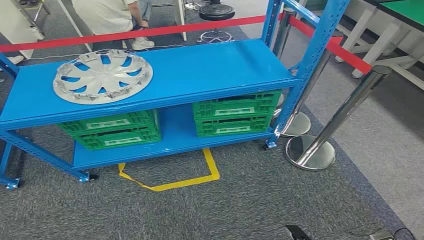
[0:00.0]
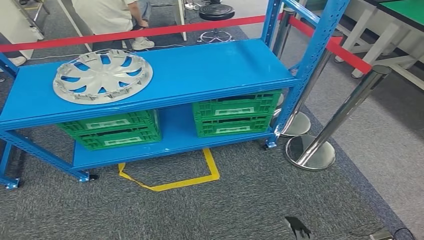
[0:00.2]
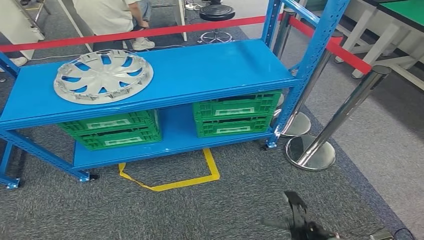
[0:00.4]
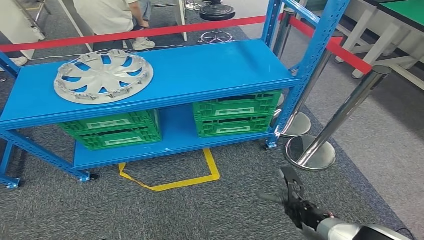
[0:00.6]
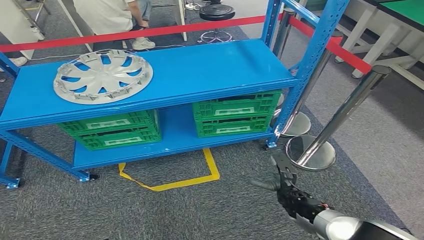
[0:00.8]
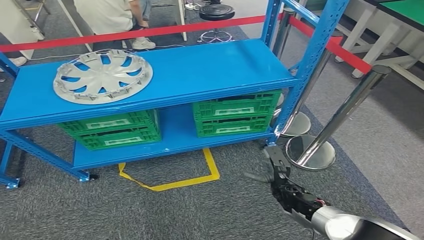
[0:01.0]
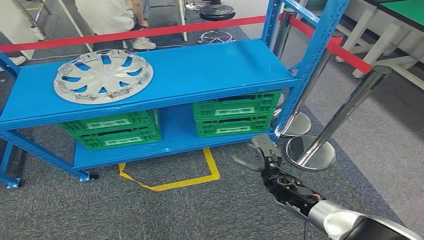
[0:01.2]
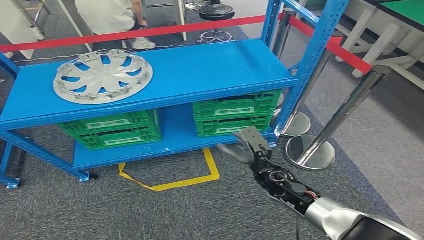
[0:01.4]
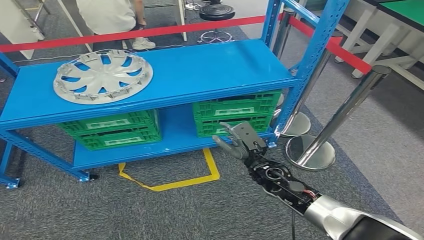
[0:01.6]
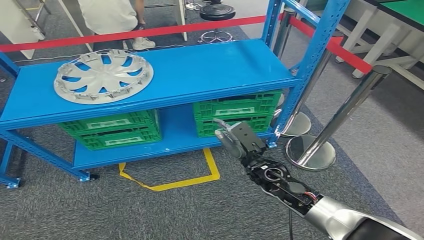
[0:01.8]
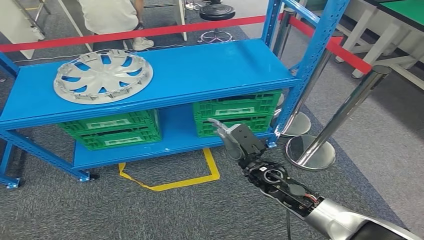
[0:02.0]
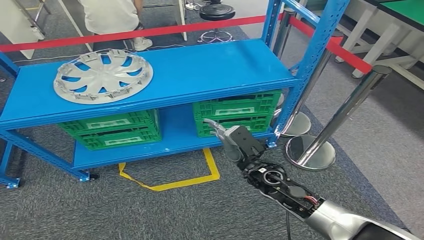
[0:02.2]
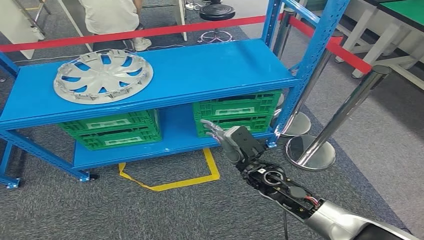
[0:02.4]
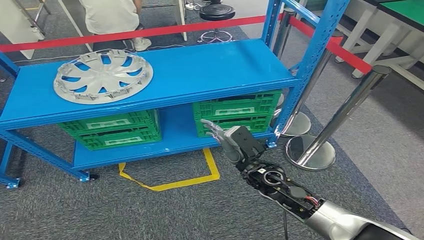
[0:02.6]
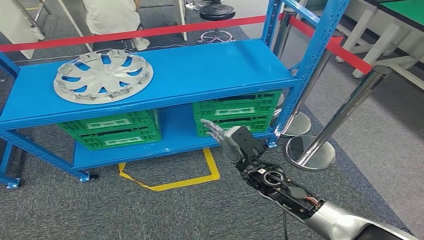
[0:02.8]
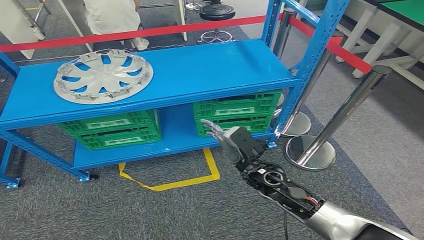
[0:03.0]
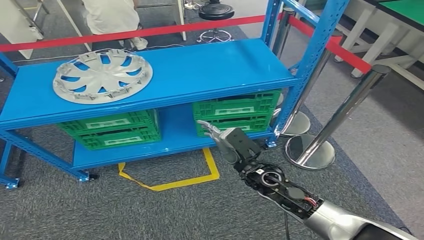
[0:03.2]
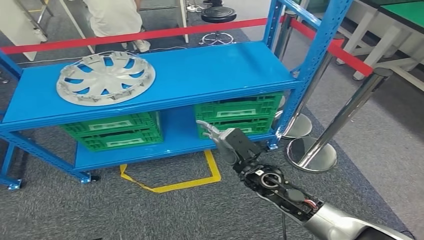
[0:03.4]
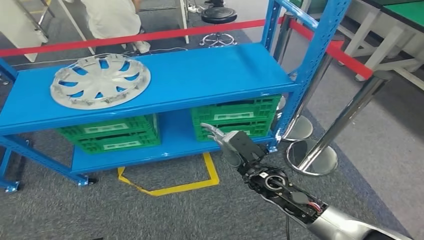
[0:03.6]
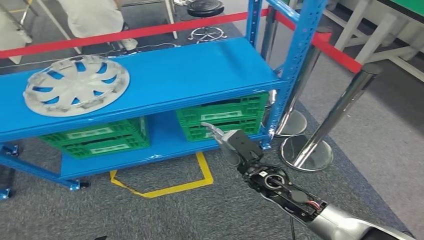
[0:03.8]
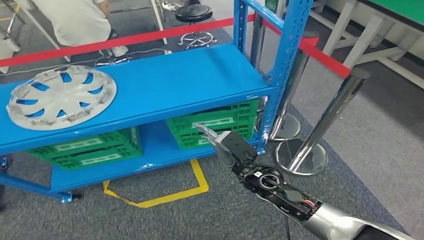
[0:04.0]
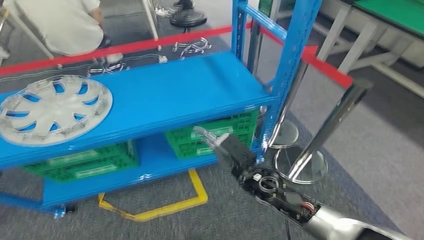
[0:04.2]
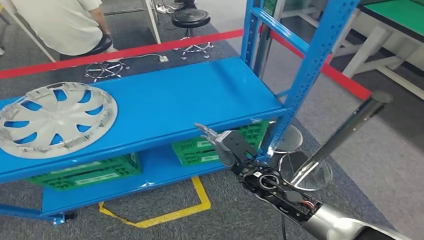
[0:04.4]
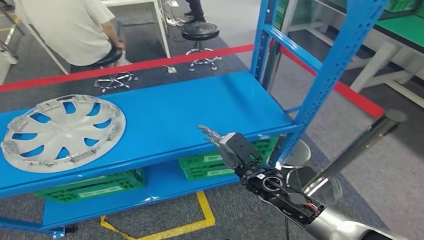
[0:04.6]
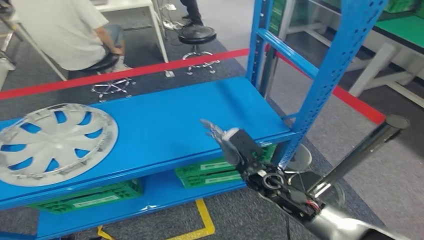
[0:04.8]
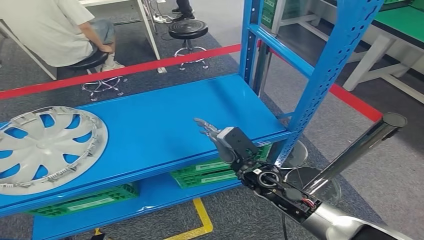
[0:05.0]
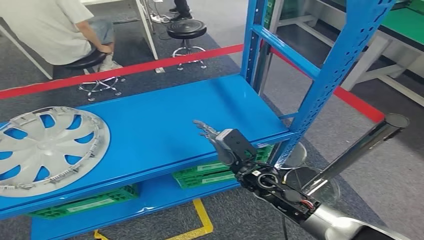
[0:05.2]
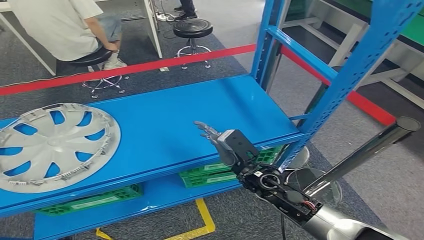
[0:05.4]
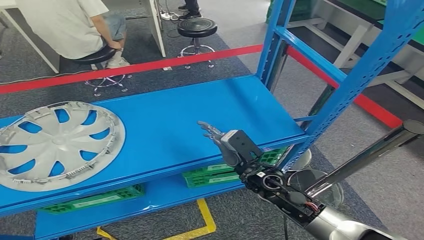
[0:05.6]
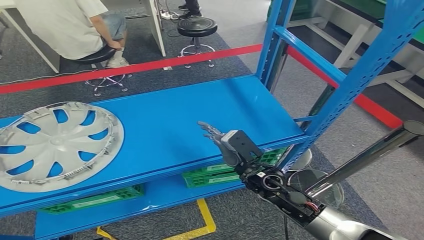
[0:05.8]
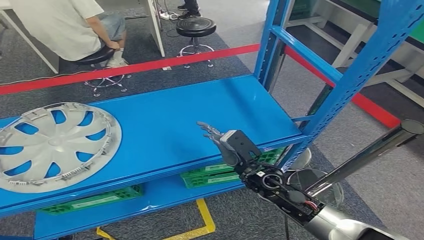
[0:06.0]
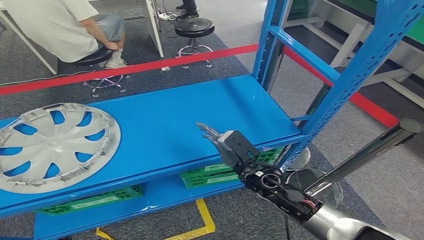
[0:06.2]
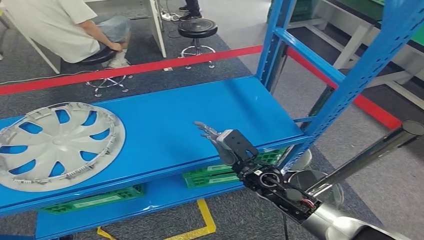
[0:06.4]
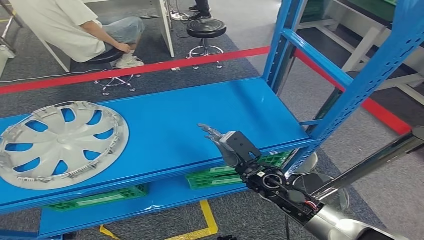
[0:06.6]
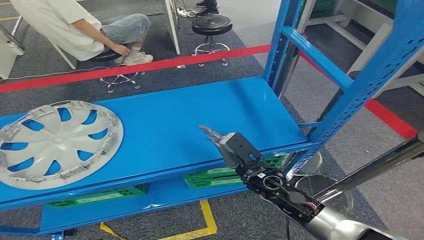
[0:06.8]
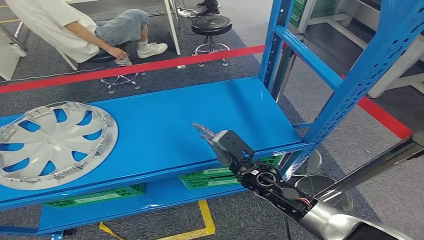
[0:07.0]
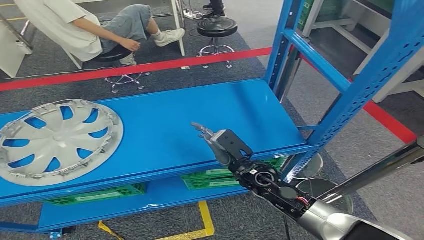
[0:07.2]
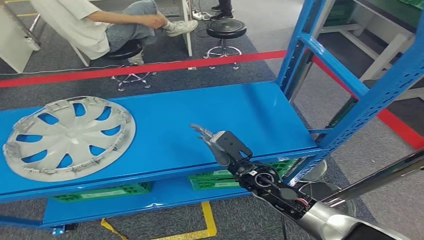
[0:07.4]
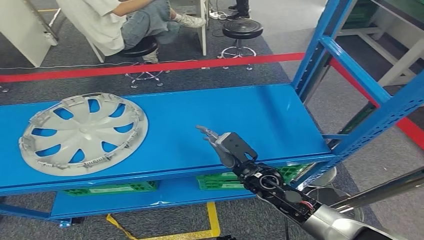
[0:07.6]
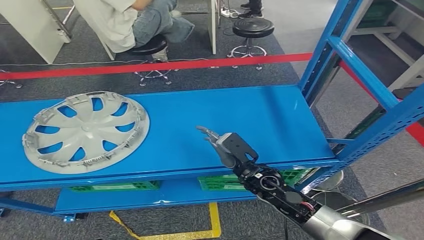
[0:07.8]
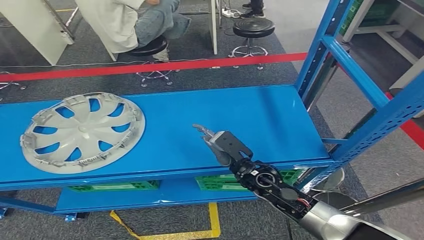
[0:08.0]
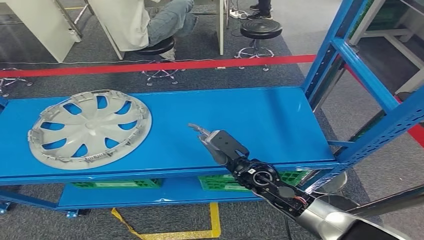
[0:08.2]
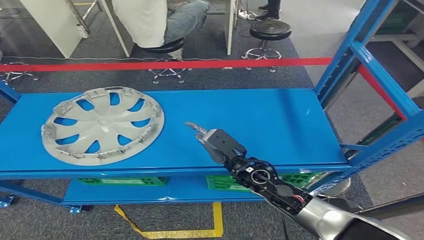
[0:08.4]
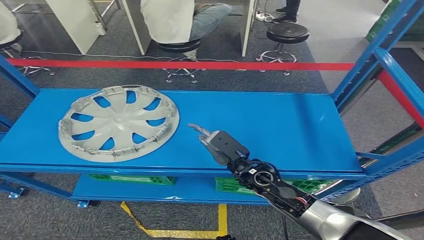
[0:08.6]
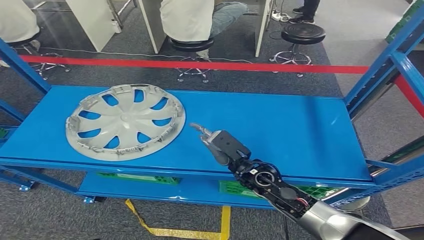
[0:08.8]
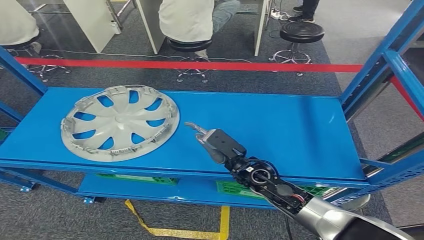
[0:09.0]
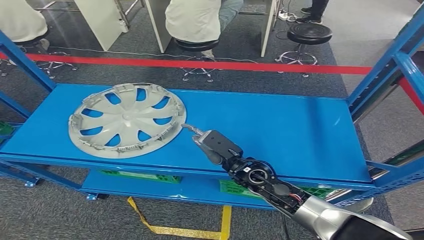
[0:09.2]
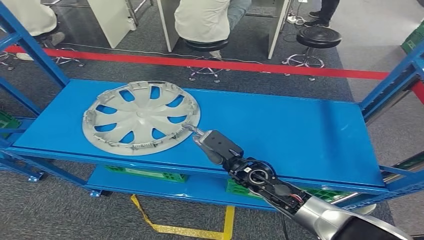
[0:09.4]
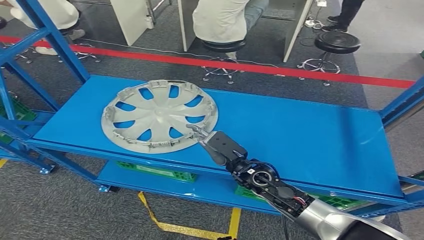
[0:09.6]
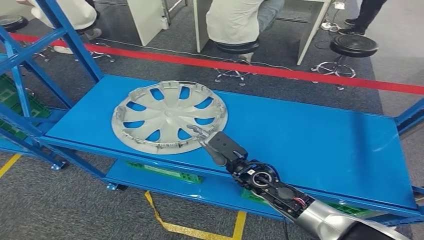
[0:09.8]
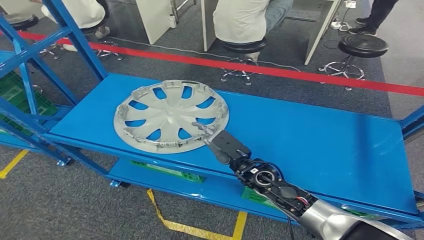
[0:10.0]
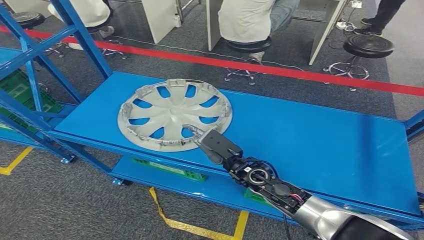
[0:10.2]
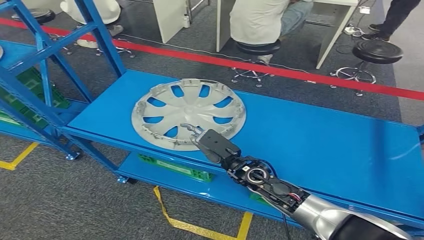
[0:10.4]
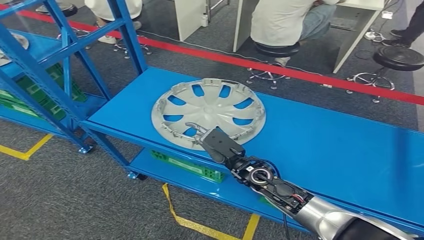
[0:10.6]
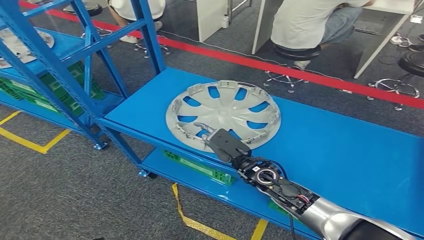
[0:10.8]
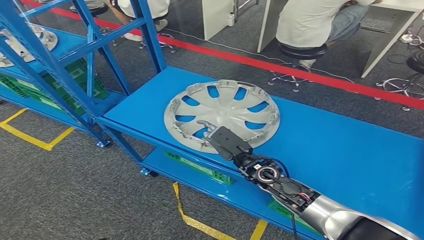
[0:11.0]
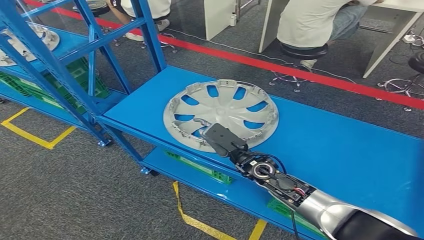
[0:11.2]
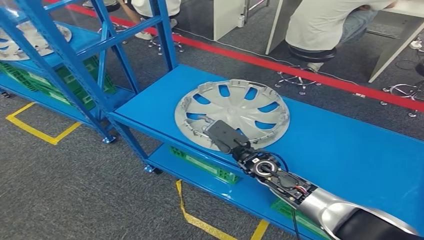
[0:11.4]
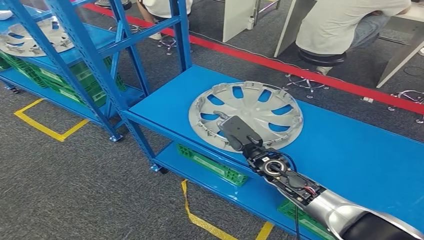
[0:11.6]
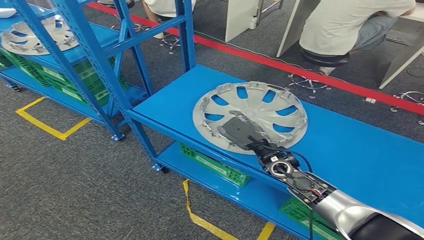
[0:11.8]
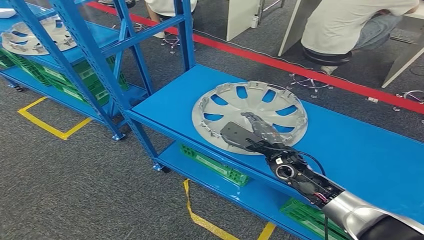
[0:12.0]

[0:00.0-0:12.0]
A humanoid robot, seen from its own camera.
1.6 to 3.0 s: The hands move only a little.

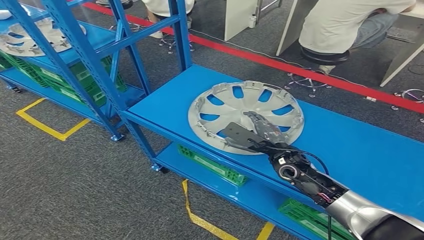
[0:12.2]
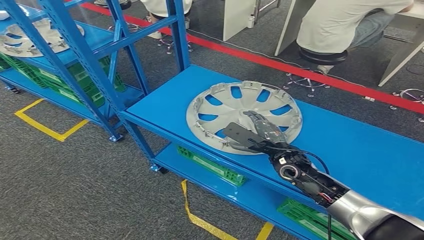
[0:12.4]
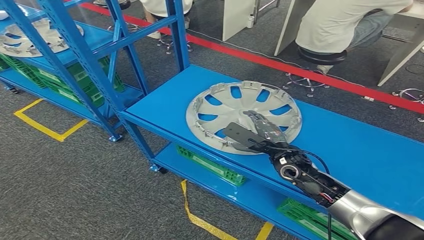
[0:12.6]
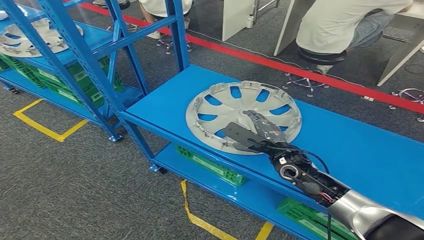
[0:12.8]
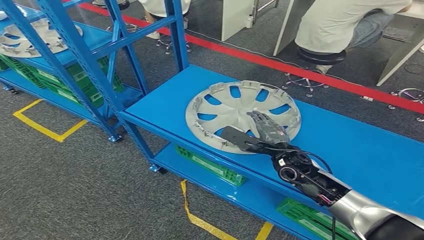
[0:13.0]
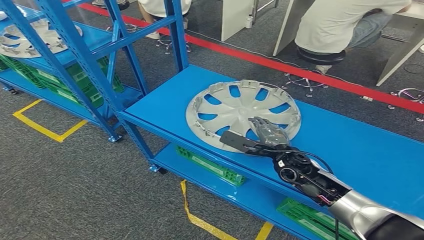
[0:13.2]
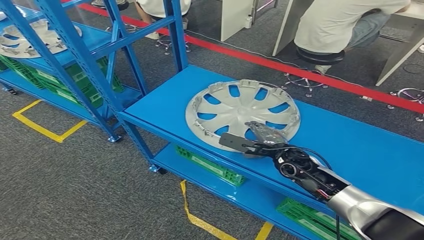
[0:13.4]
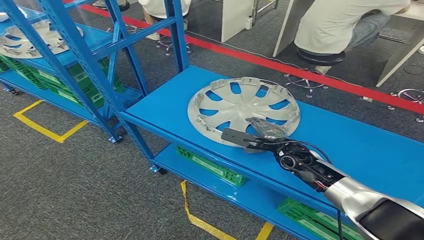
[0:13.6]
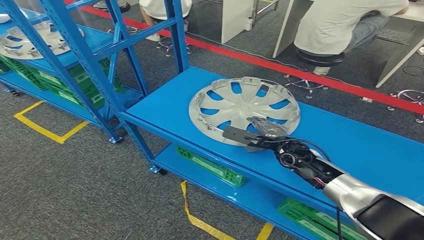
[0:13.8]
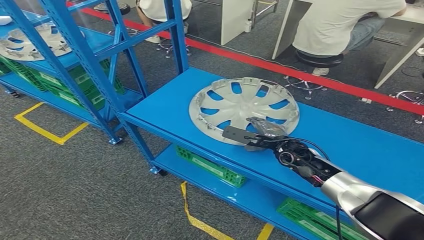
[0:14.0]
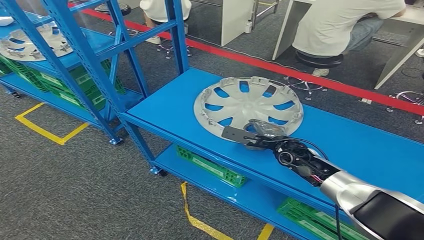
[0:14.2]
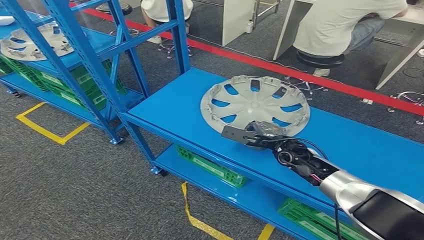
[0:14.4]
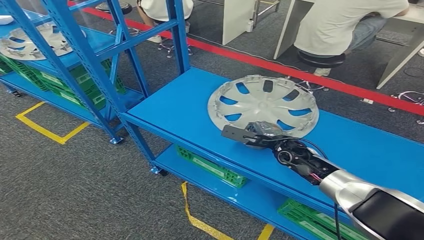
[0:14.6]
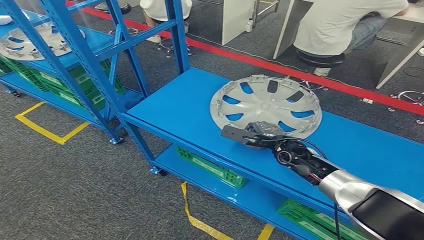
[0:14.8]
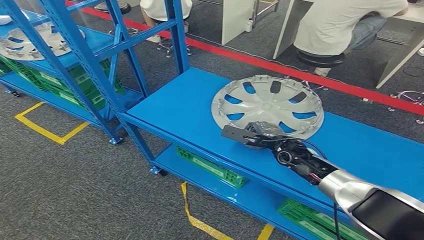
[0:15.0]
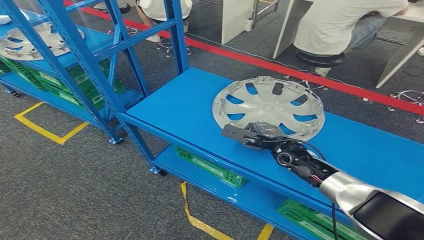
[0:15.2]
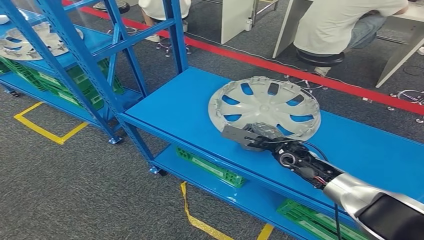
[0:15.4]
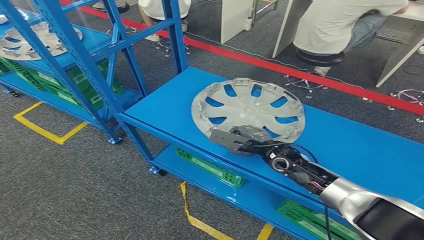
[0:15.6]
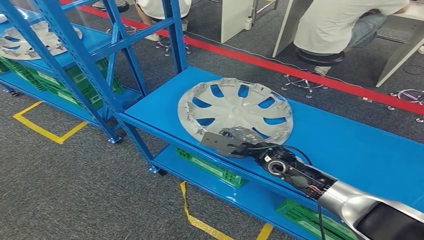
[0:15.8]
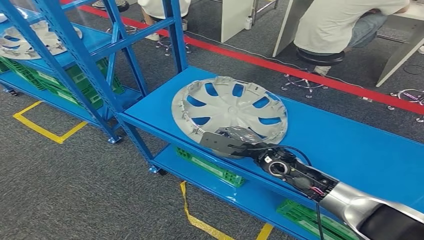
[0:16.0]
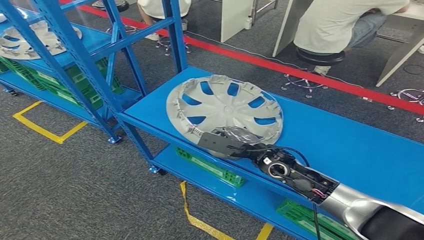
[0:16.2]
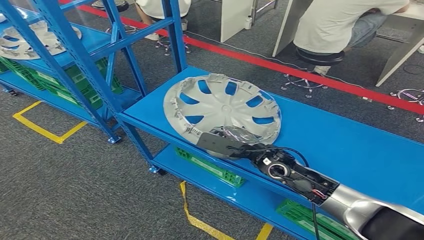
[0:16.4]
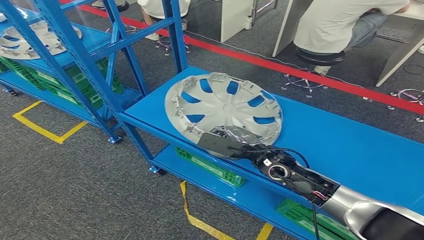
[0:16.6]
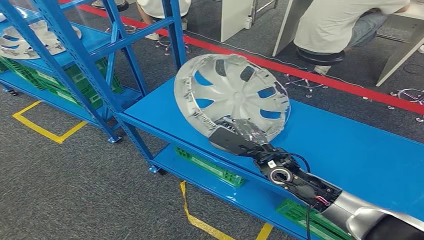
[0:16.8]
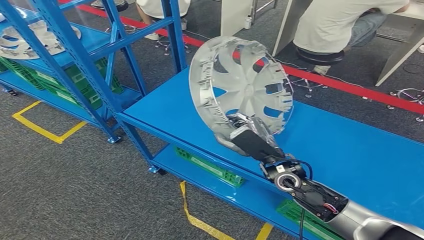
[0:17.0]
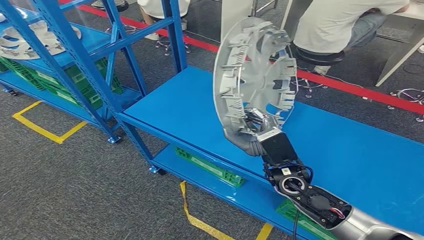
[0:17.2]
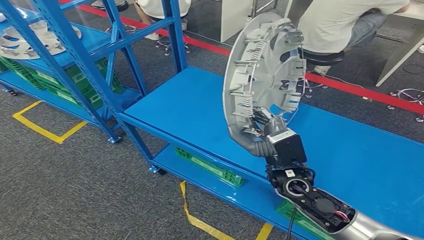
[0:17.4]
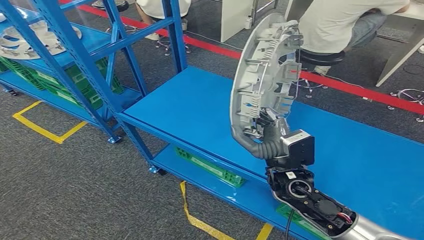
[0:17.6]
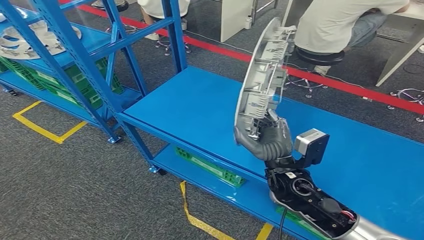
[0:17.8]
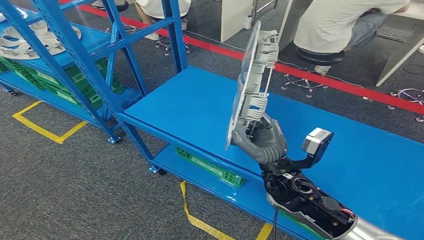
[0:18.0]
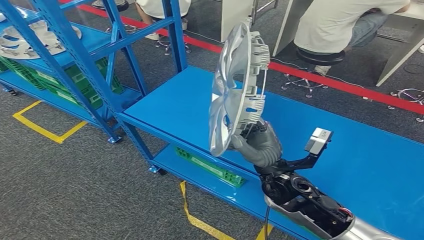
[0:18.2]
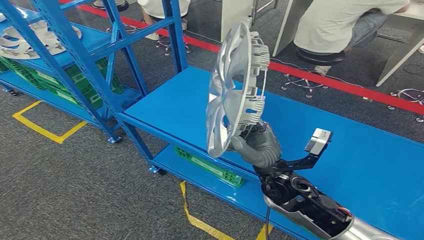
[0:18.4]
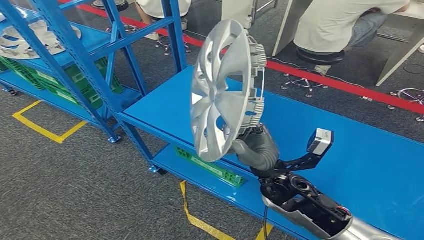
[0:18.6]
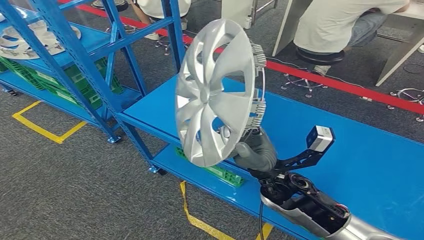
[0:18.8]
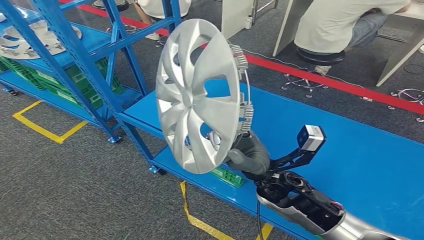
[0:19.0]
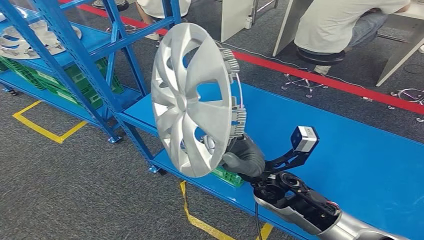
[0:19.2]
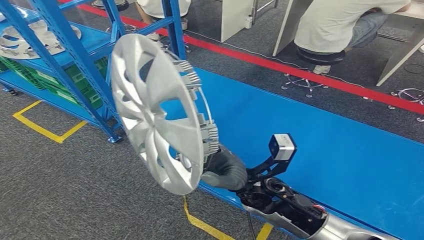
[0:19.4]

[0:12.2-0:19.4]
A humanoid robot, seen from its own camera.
Step, 12.2 to 18.6 s: Pick up the small component from the shelf.
13.6 to 15.0 s: The hands move only a little.
16.6 to 18.0 s: The right hand goes about 5 cm backward.
